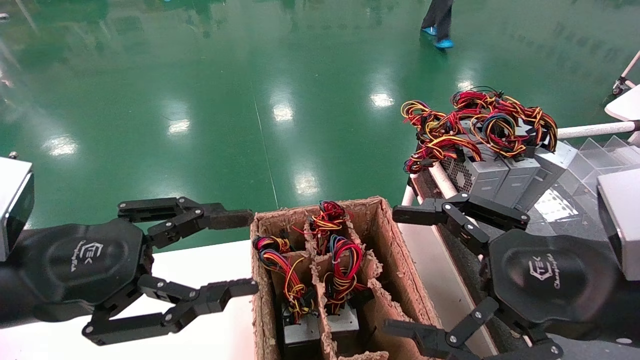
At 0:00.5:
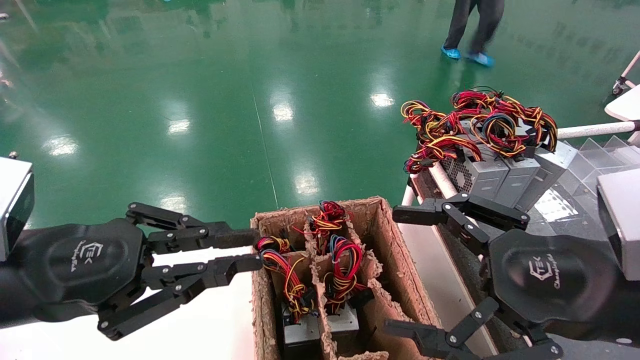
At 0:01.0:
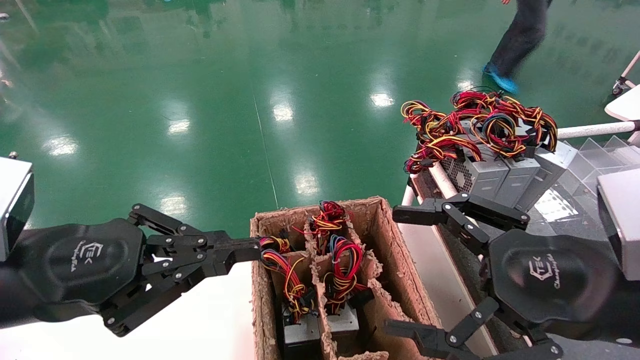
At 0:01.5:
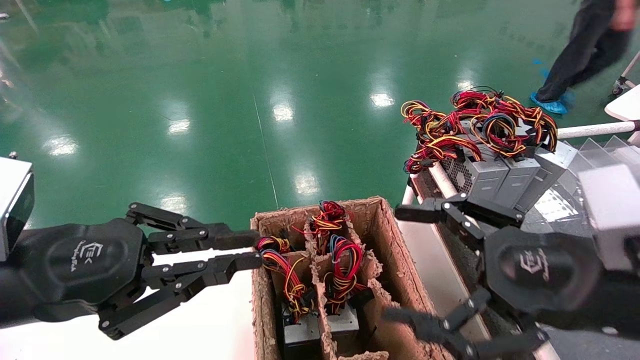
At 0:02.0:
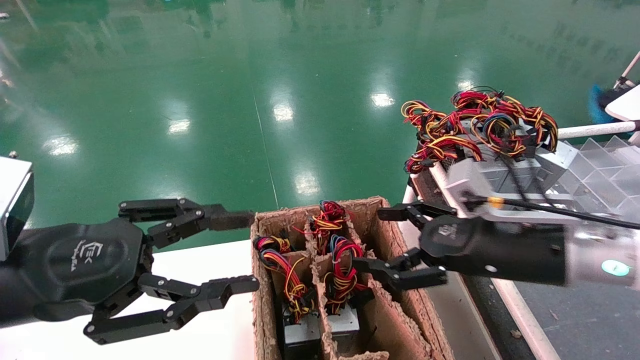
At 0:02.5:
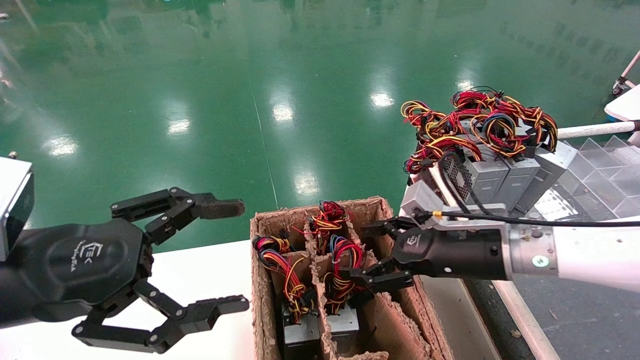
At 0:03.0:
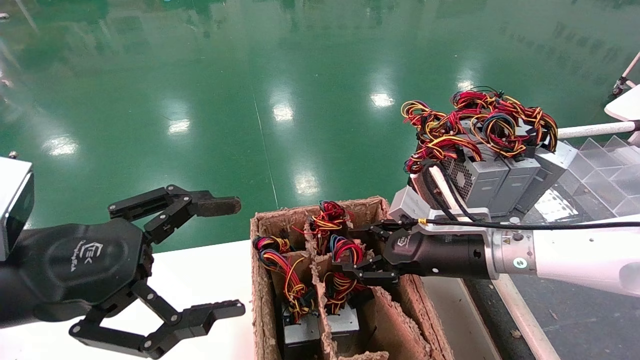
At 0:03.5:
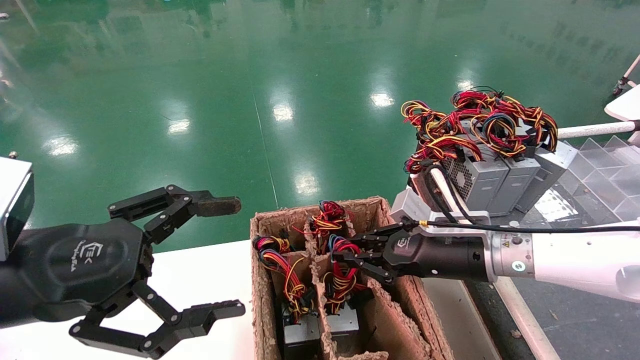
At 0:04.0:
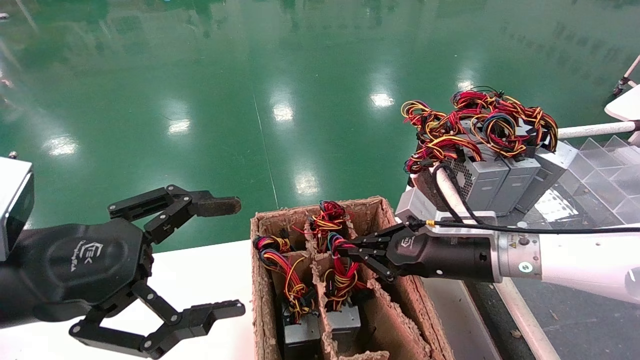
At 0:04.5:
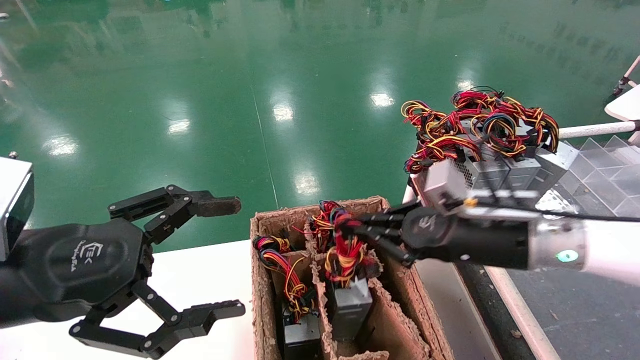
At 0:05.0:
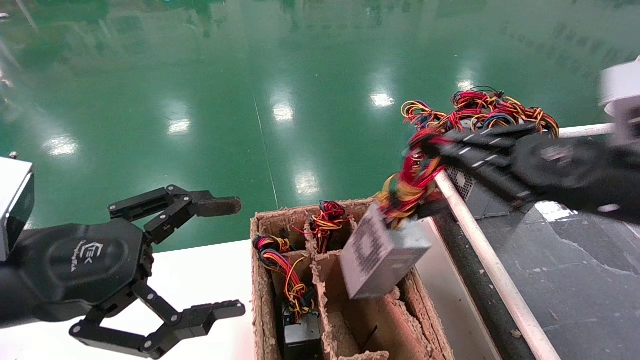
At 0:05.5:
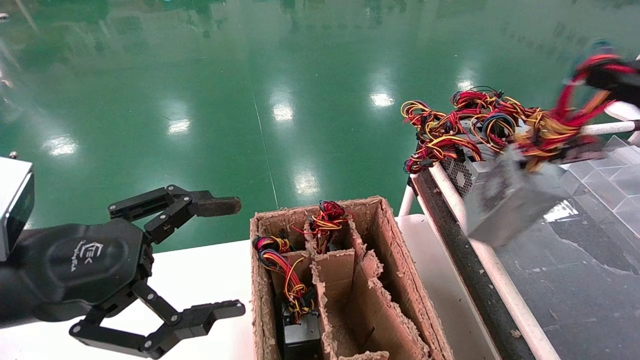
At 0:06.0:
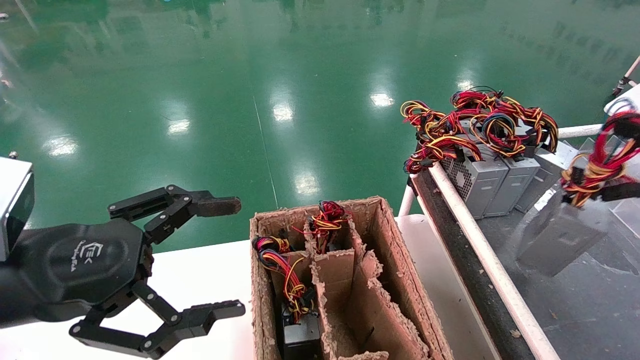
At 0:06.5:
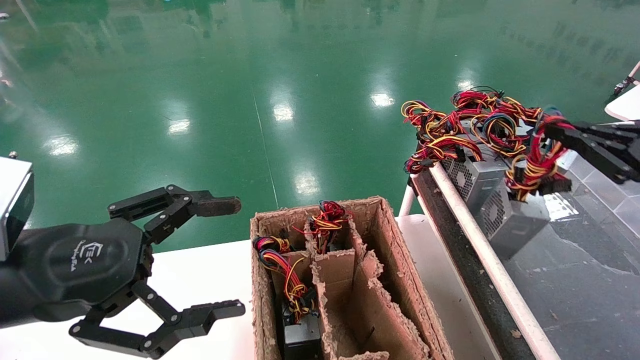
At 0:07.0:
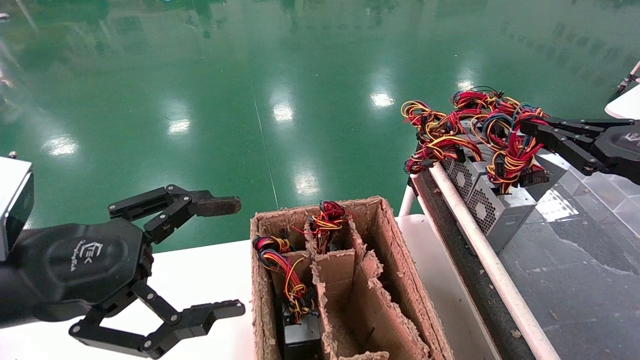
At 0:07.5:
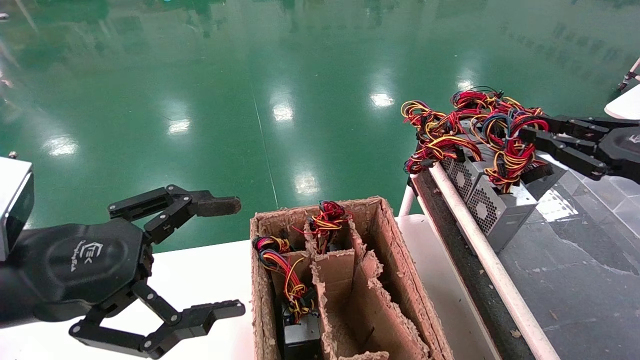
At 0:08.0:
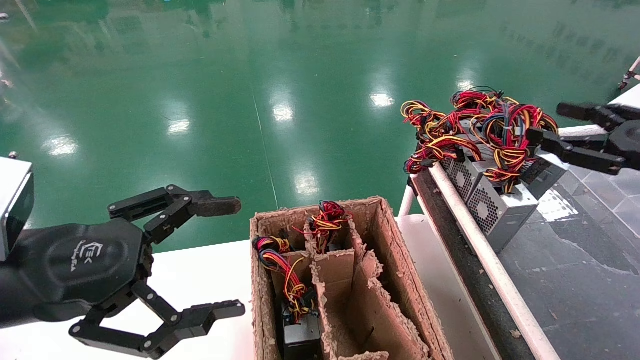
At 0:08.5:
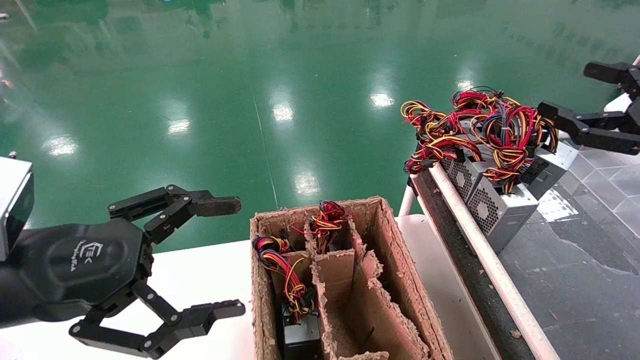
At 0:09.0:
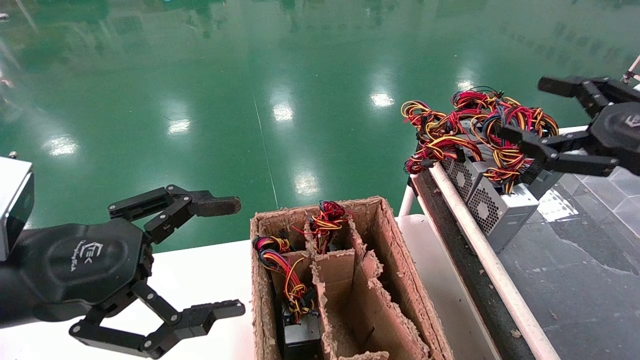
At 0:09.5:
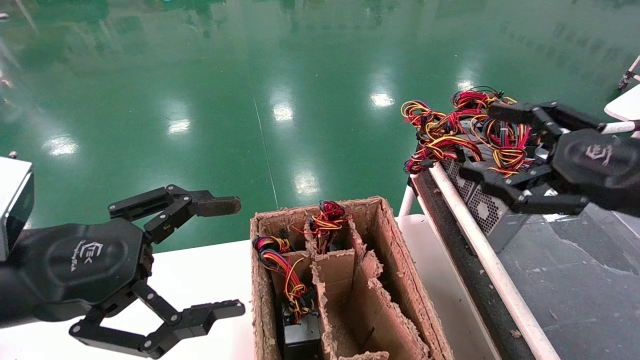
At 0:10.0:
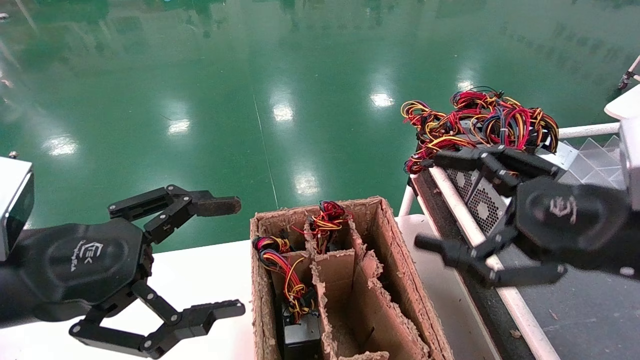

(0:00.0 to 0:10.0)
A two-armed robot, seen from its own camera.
Step, 0:01.5 - 0:03.5: Grab and lift the power supply from the large box.
Step, 0:04.0 - 0:07.0: Place the power supply on the operating table.
0:00.0 - 0:02.0: The left gripper closes, then opens again. The right gripper heads forward, covering some 10 cm.
0:02.0 - 0:04.0: The left gripper opens. The right gripper moves forward, about 5 cm, and closes its fingers.
0:04.0 - 0:06.0: The right gripper travels to the right, backward and upward by approximately 35 cm.
0:06.0 - 0:08.0: The right gripper moves forward, approximately 10 cm, and opens.
0:08.0 - 0:10.0: The right gripper heads to the left and backward, covering some 20 cm, and opens its fingers.
